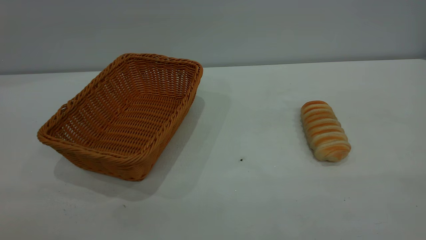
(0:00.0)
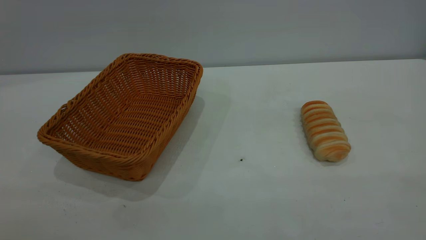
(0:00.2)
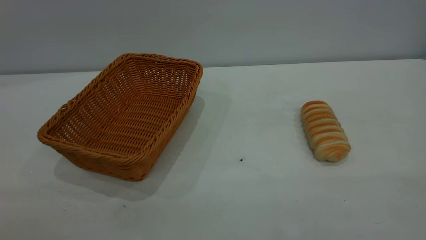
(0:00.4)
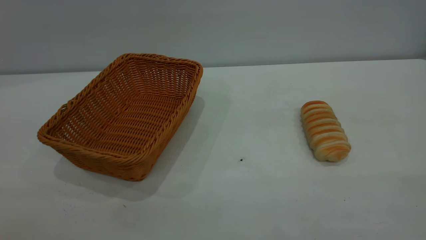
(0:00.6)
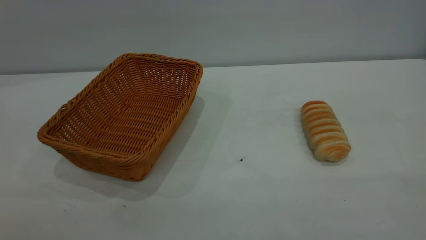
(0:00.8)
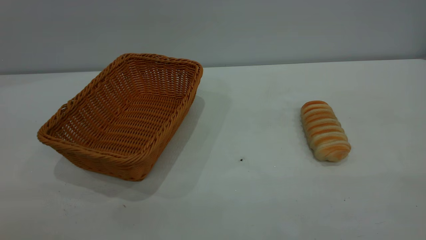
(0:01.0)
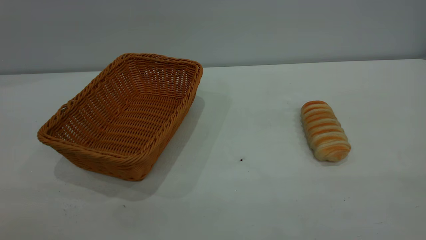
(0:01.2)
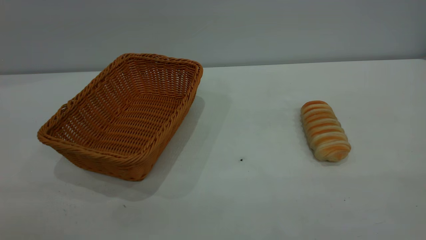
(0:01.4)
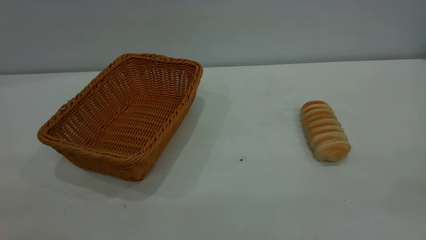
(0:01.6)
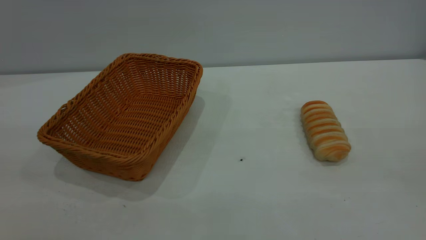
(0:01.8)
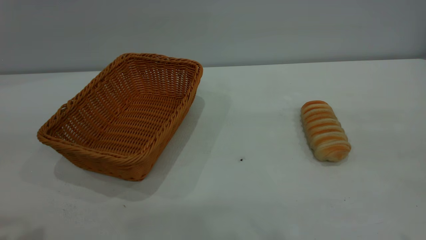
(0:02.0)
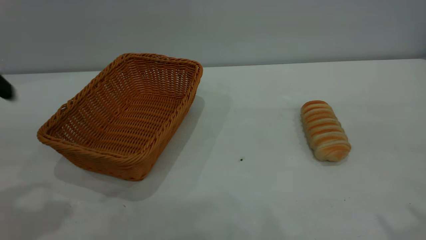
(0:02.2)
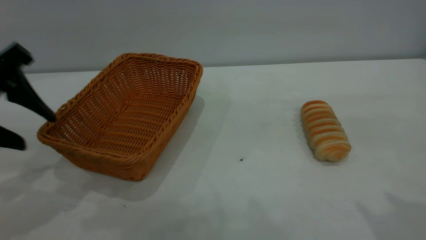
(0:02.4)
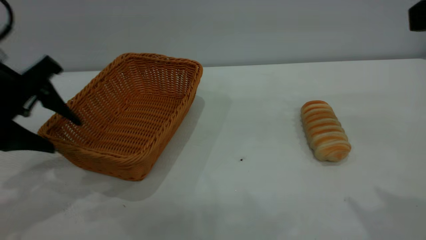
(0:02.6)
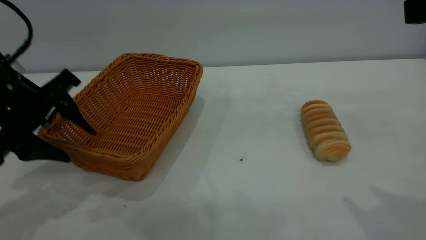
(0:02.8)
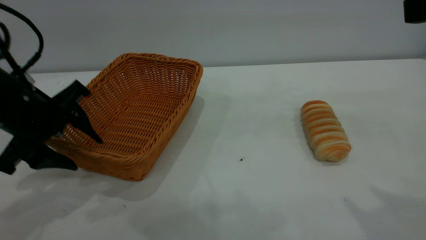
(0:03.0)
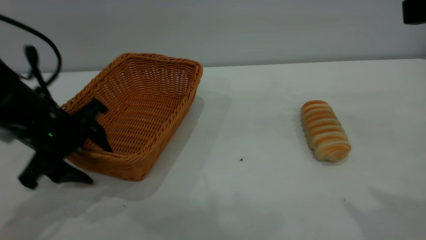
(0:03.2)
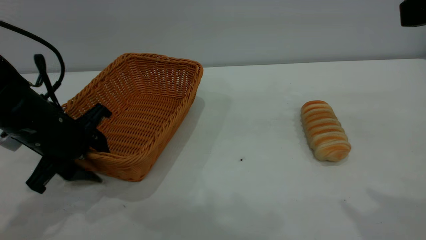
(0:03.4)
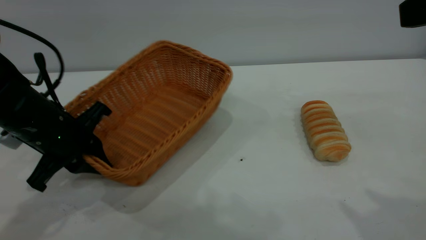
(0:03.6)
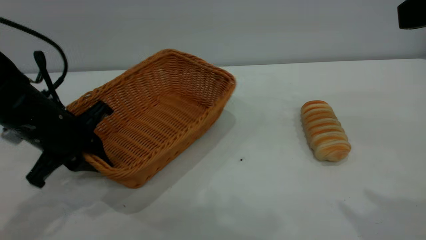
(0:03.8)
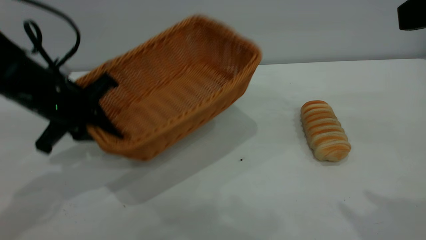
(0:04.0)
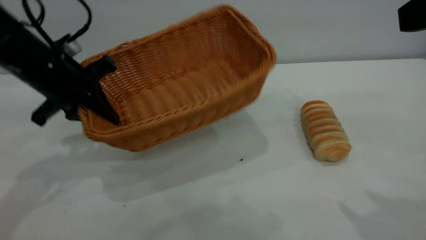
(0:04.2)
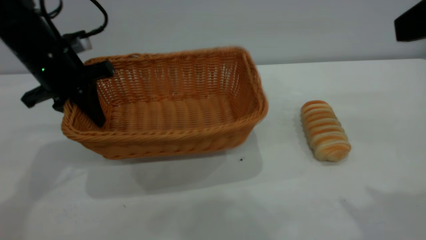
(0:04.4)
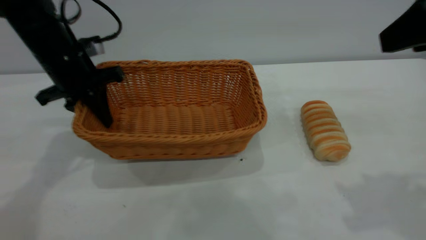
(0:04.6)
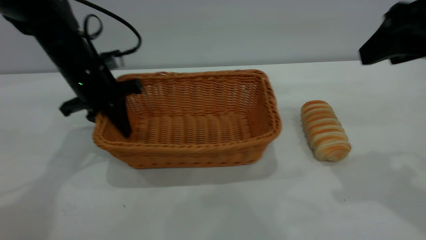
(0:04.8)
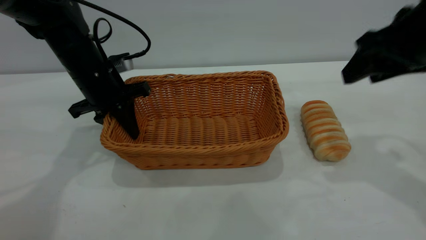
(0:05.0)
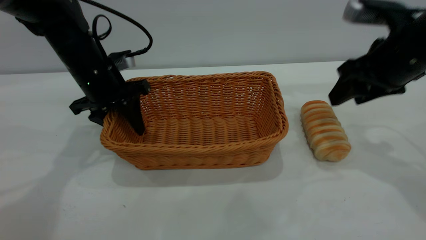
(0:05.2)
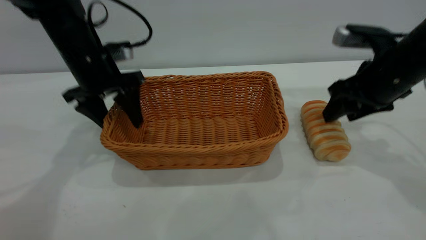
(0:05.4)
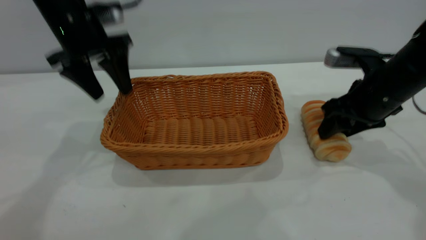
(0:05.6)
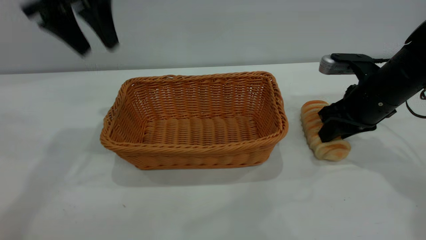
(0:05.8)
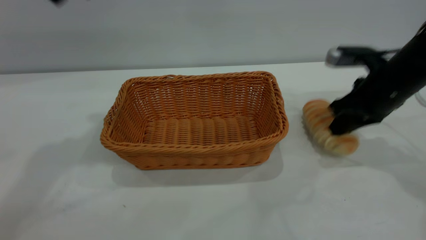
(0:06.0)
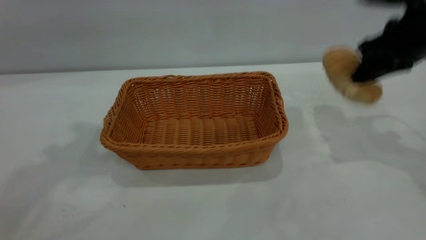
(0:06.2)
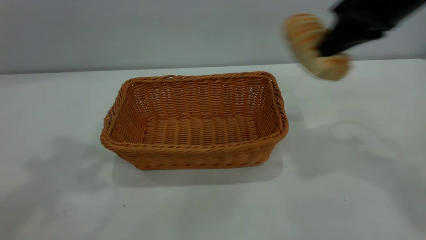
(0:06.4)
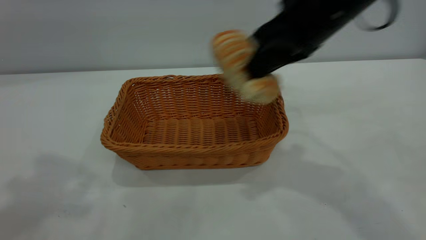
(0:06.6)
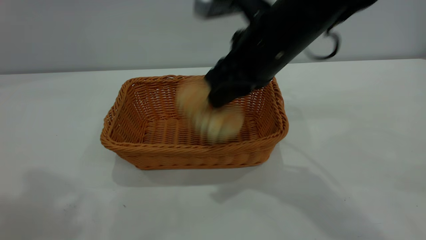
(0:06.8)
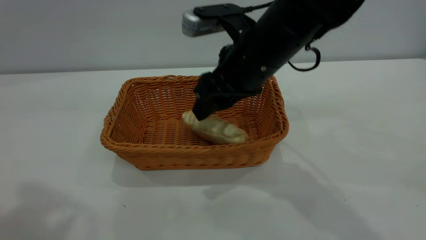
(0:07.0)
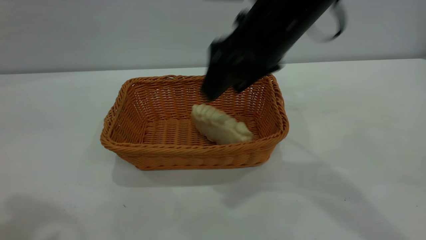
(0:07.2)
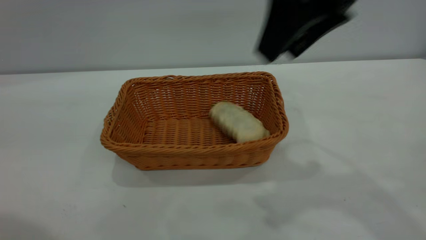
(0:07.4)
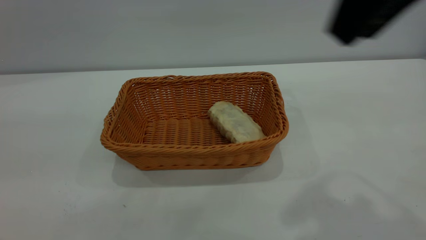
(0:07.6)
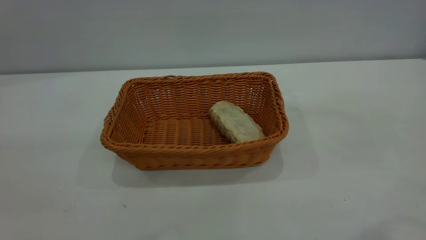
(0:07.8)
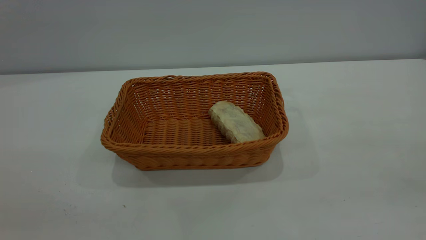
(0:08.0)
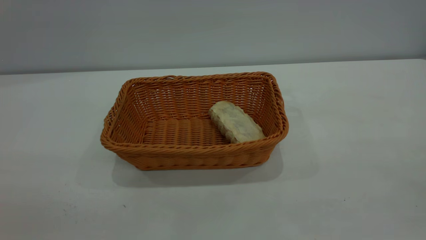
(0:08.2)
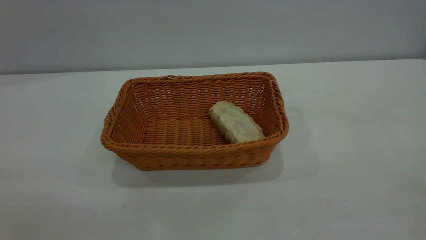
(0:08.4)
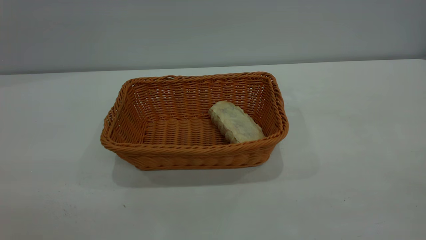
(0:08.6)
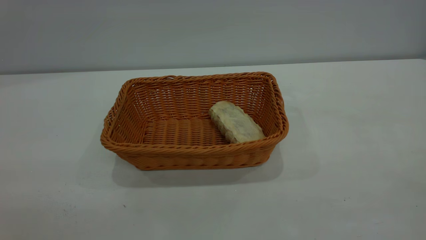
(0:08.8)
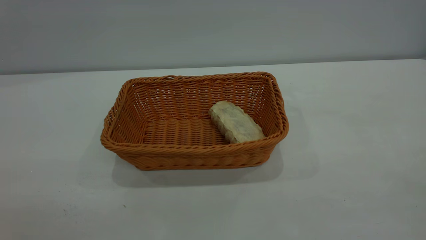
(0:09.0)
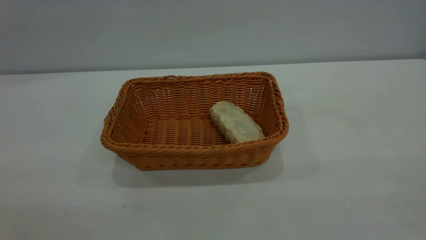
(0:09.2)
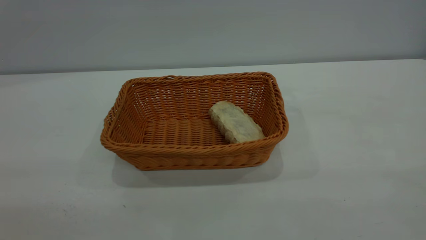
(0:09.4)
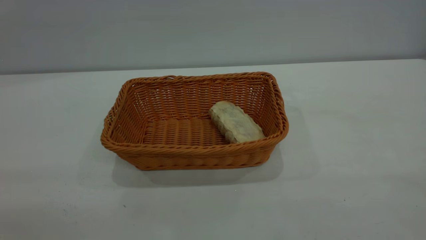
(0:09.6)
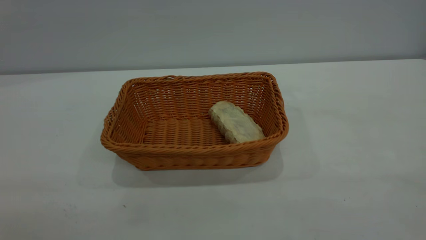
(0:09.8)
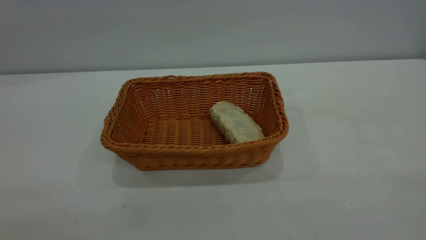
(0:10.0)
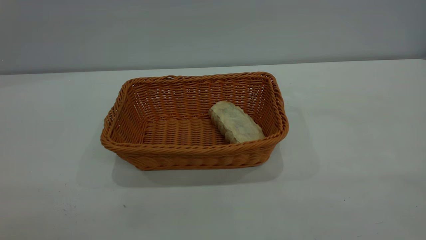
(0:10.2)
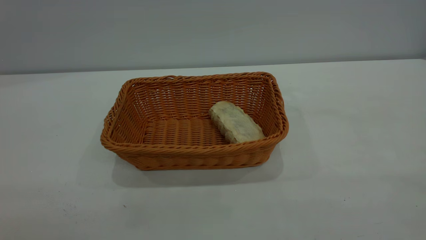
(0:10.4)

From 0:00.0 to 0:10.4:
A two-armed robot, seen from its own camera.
Task of the whole recording: One hand grasps the yellow basket and places it in the middle of the table, while the other hand picks up the long bread and puts it into the yellow basket.
Step, from 0:00.0 to 0:05.6: Move the basket to the center of view.
Step, from 0:06.2 to 0:07.2: place the bread into the basket.
From 0:00.0 to 0:01.4: Neither gripper changes place.
From 0:01.4 to 0:03.0: The left gripper goes about 35 cm forward and downward.
From 0:03.0 to 0:04.4: The left gripper heads forward, covering some 10 cm, and closes its fingers.
From 0:04.4 to 0:06.0: The left gripper shifts about 20 cm upward, and opens its fingers, while the right gripper heads forward and downward, covering roughly 25 cm, and closes.
From 0:06.0 to 0:07.4: The left gripper is displaced backward by roughly 20 cm. Meanwhile the right gripper travels upward, to the left and backward by some 25 cm, and opens.
From 0:07.4 to 0:09.0: The left gripper moves backward and downward, some 15 cm; the right gripper is displaced backward and to the right by some 30 cm.

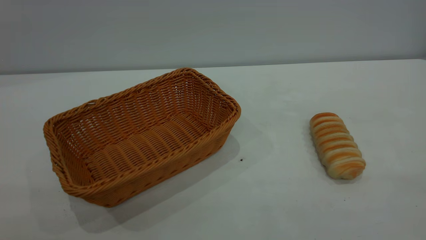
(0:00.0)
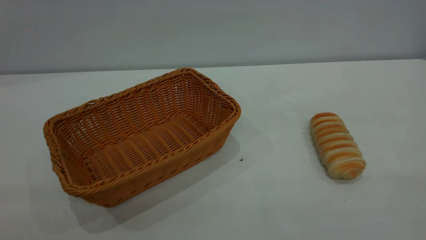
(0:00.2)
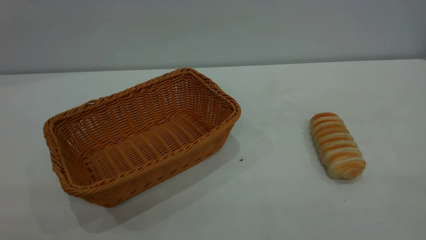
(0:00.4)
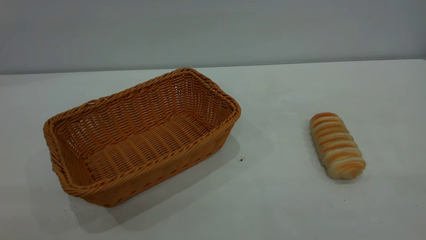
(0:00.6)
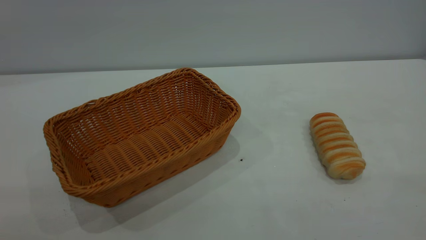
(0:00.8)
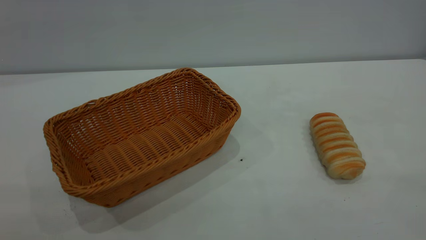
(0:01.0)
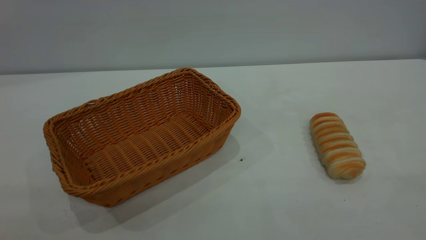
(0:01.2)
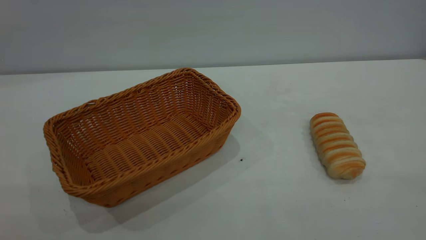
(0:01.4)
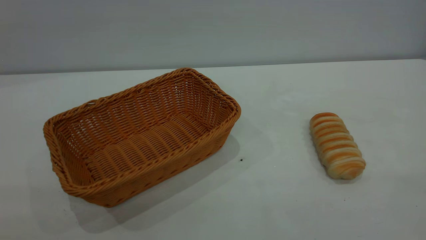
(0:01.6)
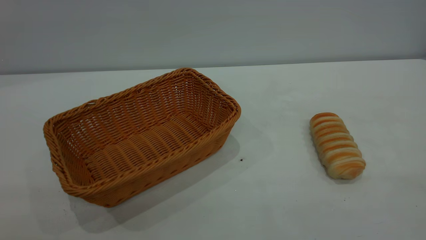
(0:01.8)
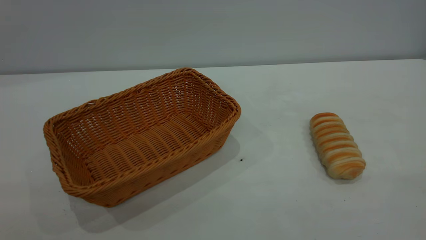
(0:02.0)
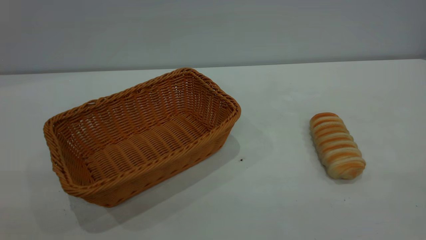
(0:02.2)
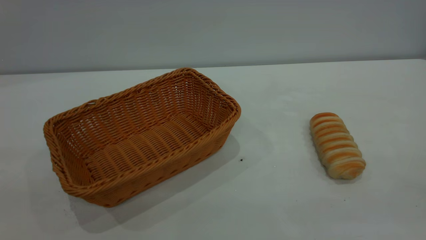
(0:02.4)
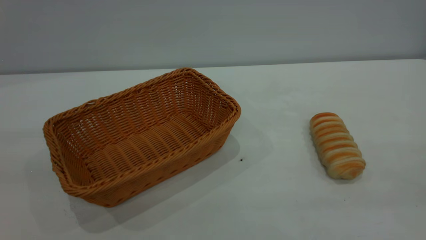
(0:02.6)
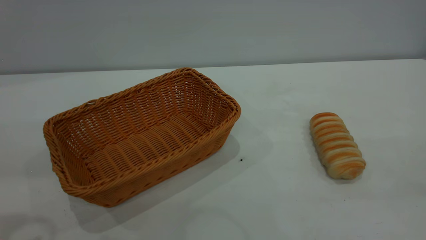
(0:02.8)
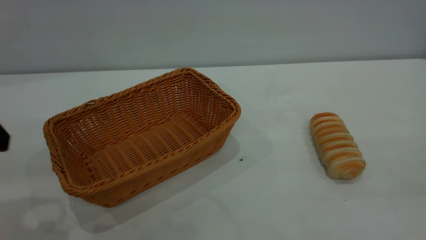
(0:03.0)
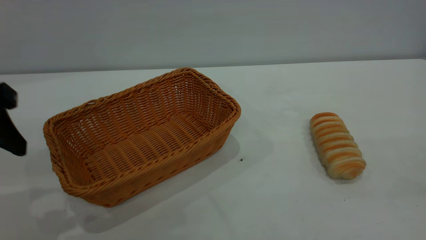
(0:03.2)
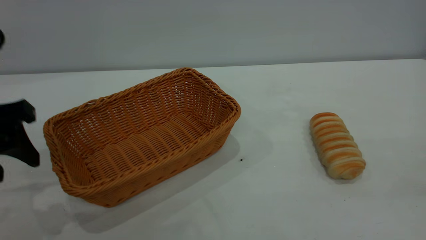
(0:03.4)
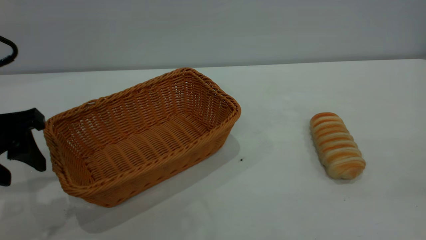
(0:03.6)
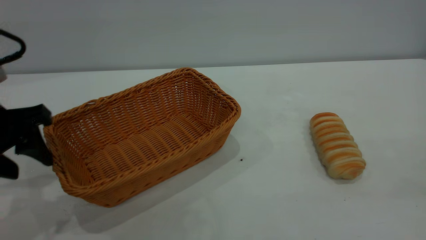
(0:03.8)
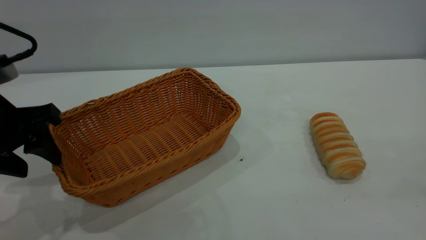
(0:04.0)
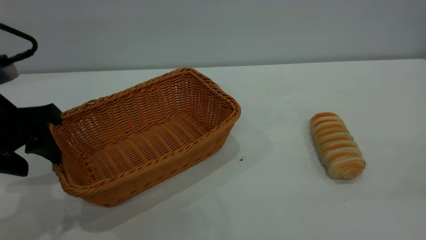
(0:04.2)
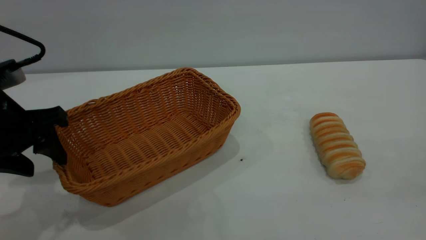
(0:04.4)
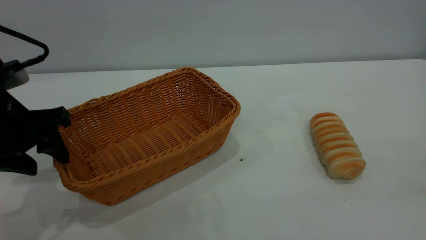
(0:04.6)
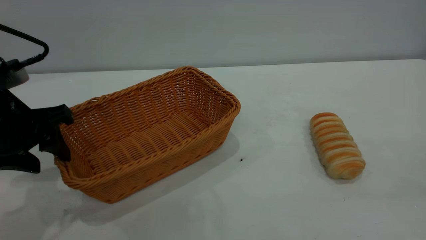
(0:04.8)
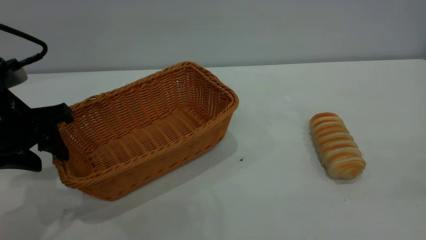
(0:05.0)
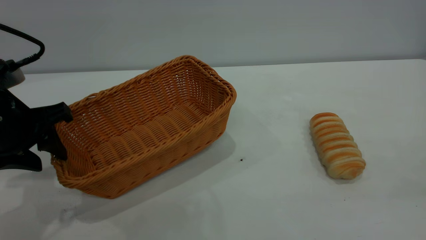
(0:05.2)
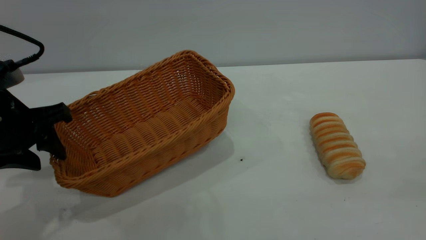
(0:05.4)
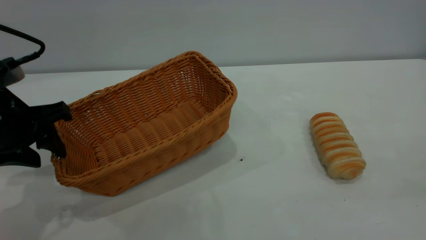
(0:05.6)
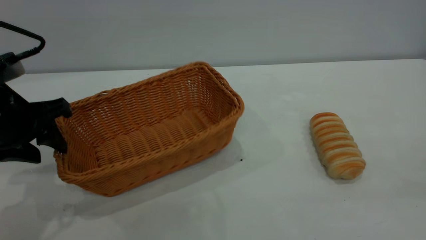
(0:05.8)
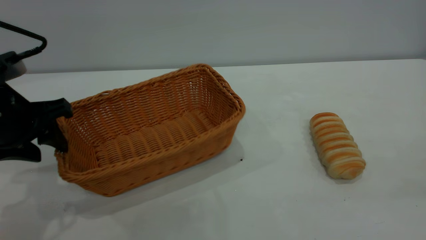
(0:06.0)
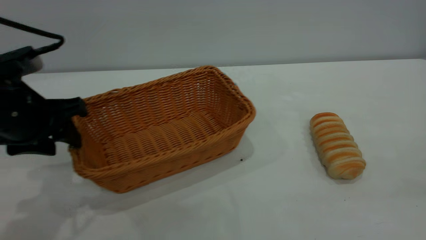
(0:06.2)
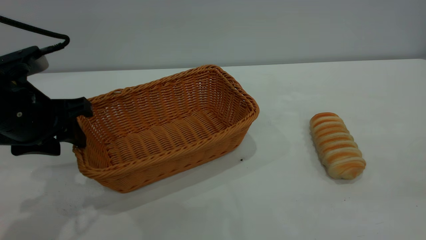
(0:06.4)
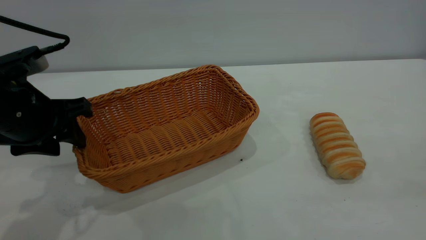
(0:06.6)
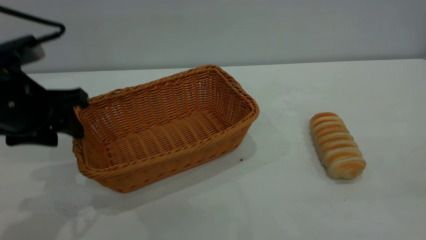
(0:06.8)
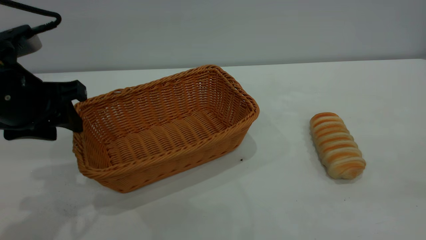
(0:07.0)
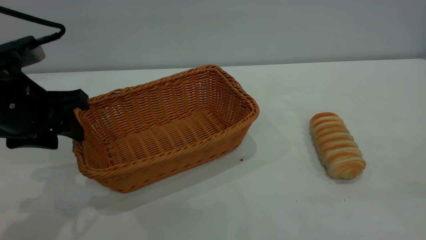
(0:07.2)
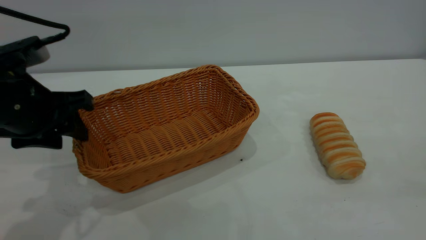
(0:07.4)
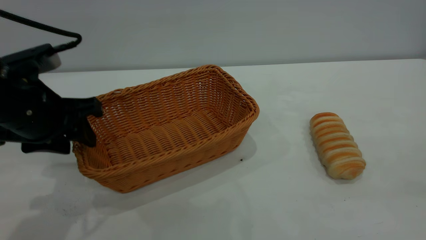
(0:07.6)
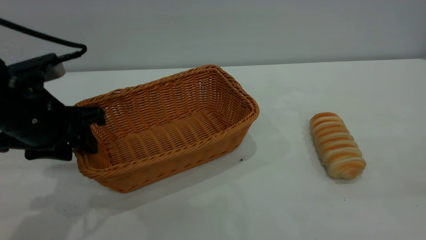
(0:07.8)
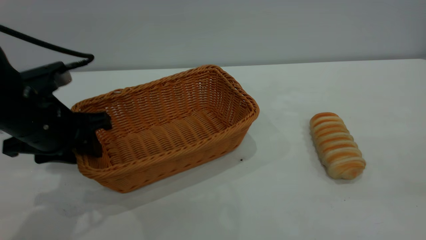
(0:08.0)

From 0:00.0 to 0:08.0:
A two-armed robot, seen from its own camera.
Task of the whole recording: One hand grasps the yellow basket and places it in the middle of the table, while the other hand picks up the long bread and puts it into the yellow basket.
From 0:00.0 to 0:01.6: Both grippers stay about where they are.
From 0:01.6 to 0:03.2: The left gripper moves forward and downward, roughly 25 cm.
From 0:03.2 to 0:04.8: The left gripper shifts about 5 cm downward.
From 0:04.8 to 0:08.0: There are only small adjustments of the grippers.
